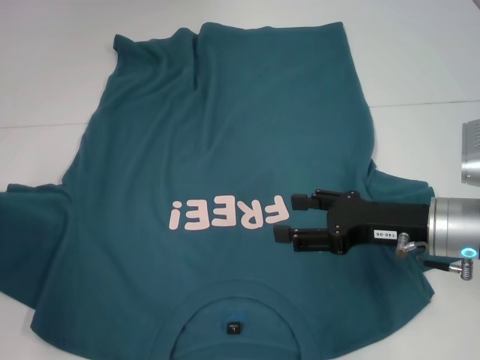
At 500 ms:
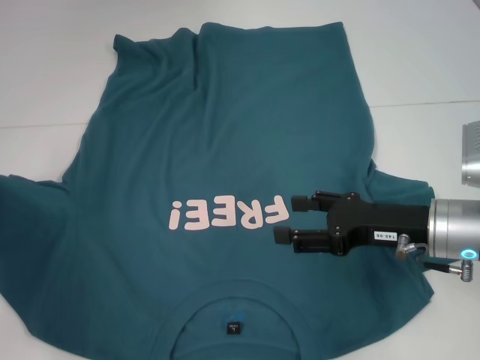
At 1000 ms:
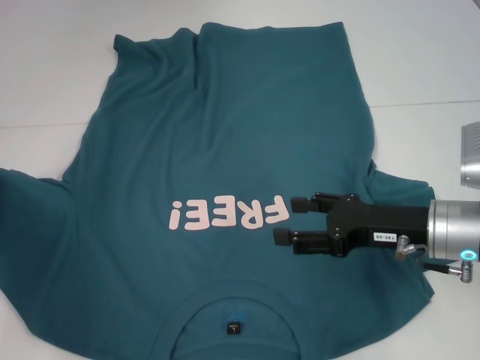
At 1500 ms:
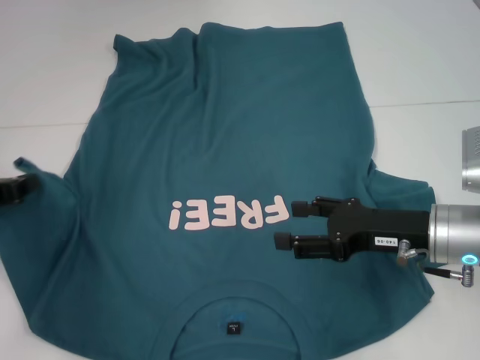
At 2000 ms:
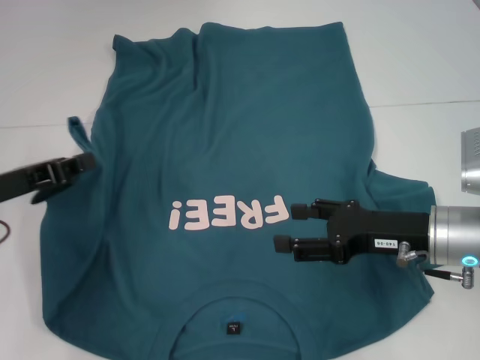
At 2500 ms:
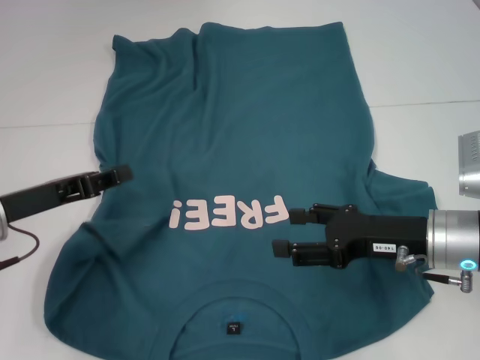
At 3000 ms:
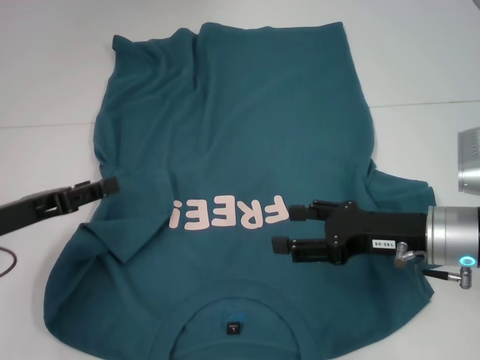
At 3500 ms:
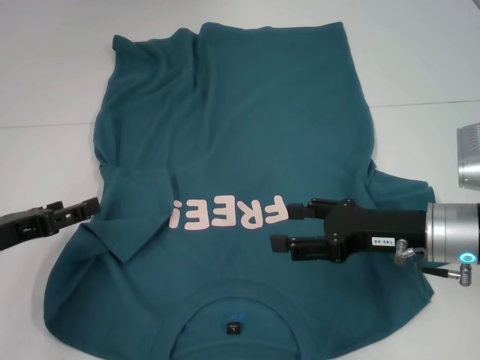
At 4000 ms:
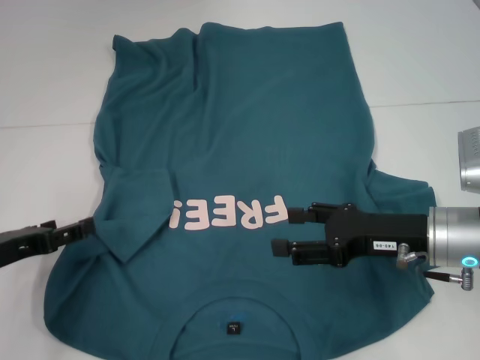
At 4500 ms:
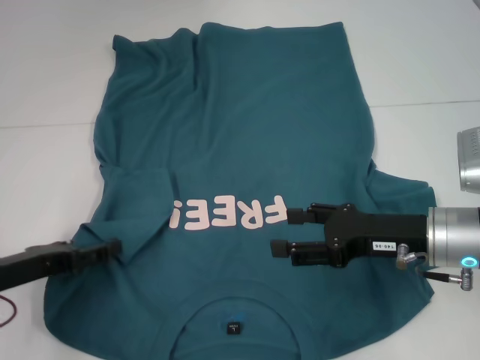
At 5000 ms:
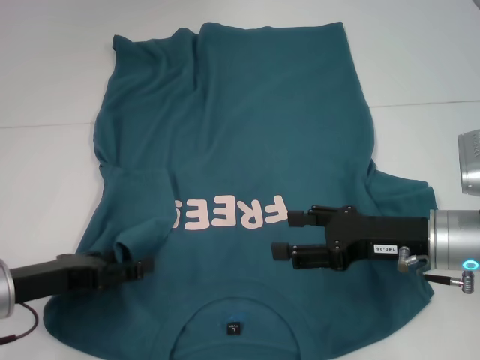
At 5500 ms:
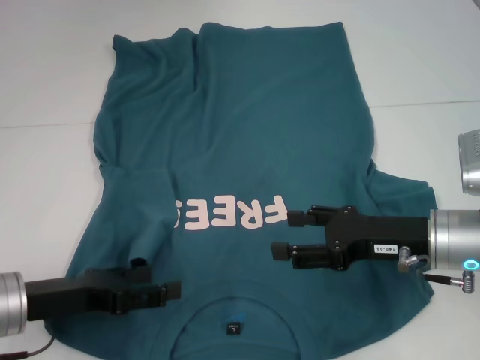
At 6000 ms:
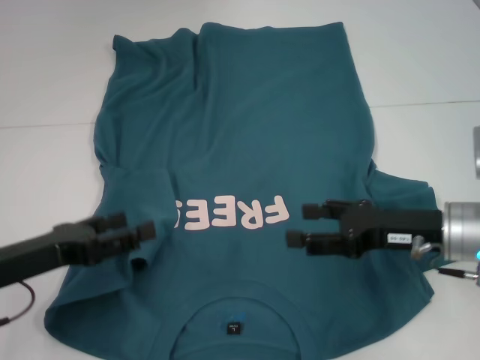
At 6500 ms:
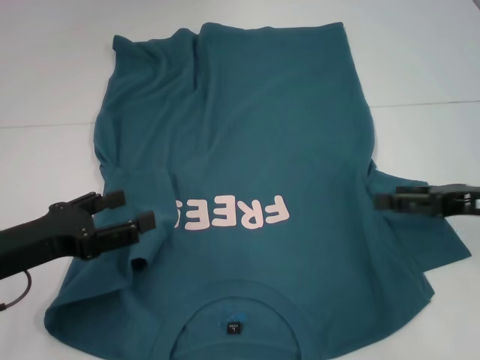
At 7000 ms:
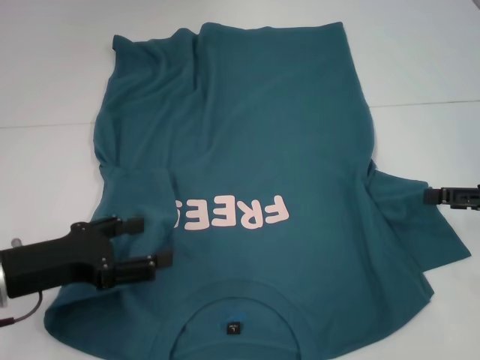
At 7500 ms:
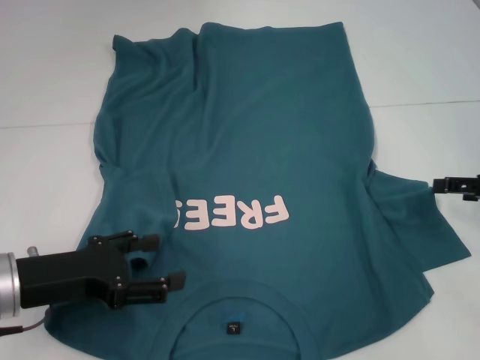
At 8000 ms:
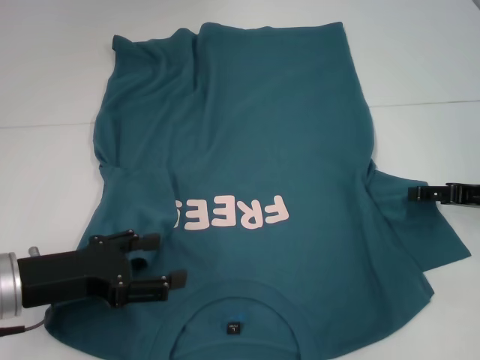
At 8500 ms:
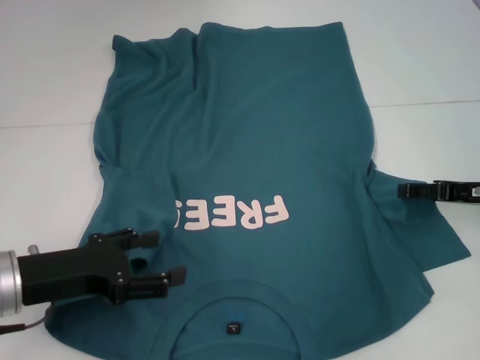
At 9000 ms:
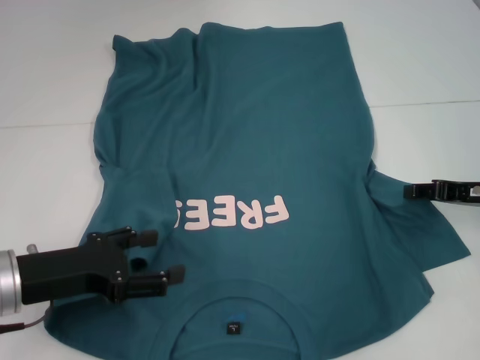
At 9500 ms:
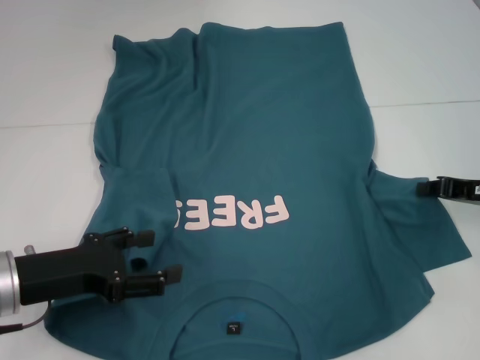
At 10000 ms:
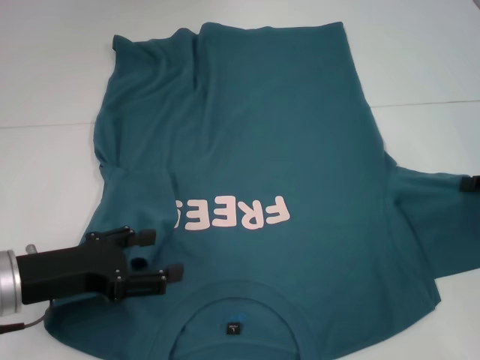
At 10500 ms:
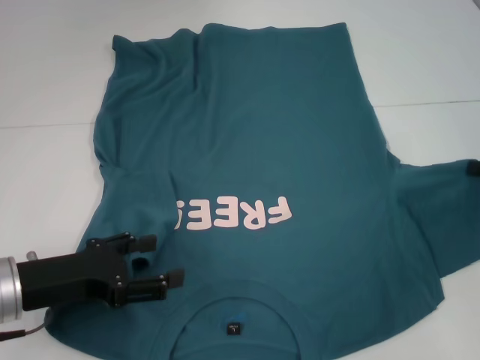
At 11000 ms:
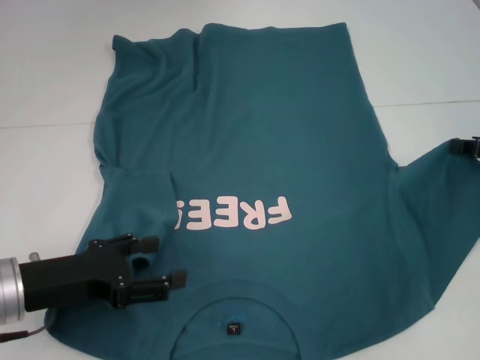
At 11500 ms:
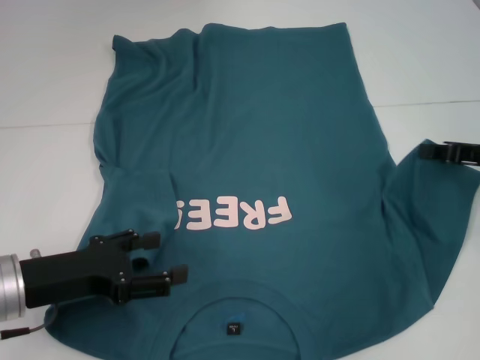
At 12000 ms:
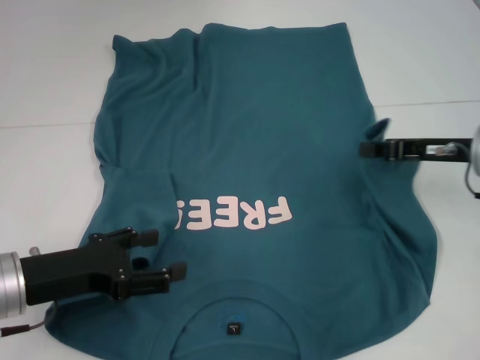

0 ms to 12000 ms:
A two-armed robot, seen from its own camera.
Step, 0 ms to 6000 ms: Fold the bottom left sleeve with your left hand.
0 ms to 2000 ms: The left gripper goes about 10 cm to the right.
2000 ms to 4000 ms: The left gripper travels downward by roughly 5 cm, and opens up.
6000 ms to 8000 ms: The right gripper shifts some 10 cm to the right.
8000 ms to 10000 ms: The right gripper closes its fingers.
10000 ms to 12000 ms: The right gripper heads to the left, covering approximately 10 cm.

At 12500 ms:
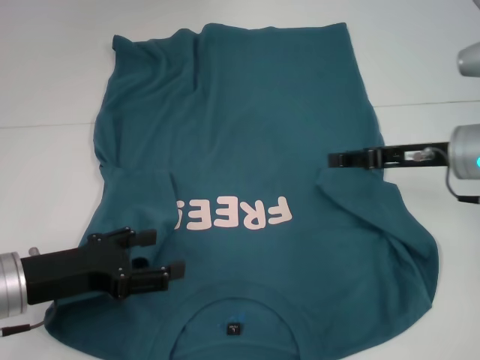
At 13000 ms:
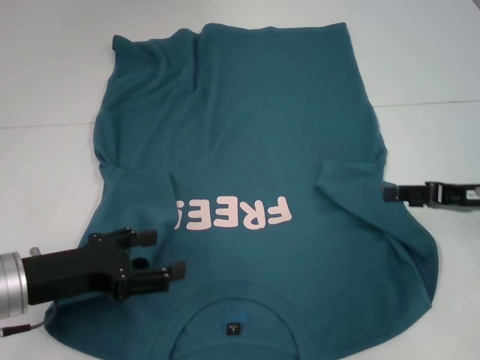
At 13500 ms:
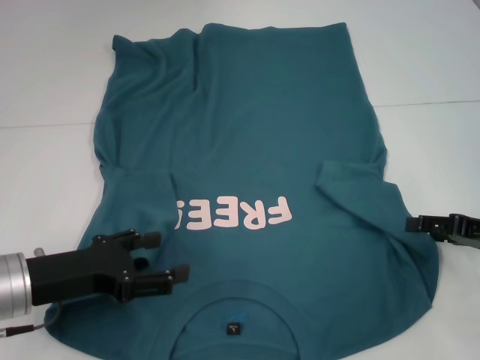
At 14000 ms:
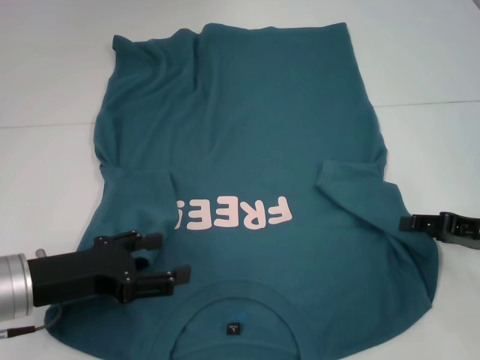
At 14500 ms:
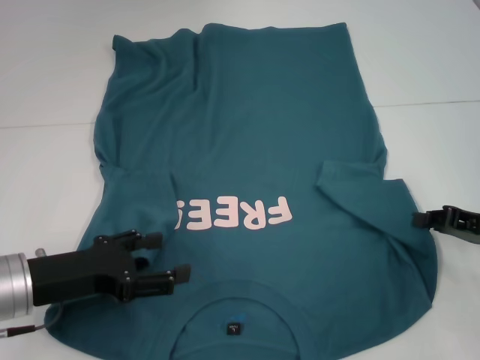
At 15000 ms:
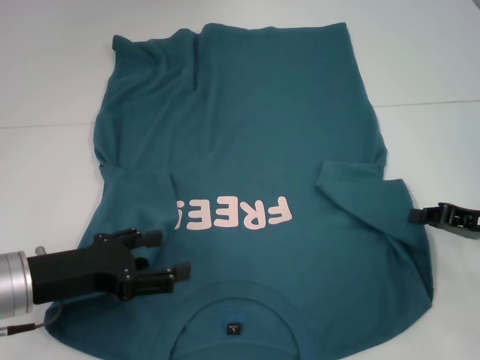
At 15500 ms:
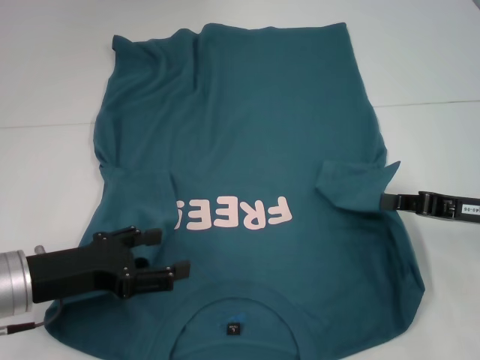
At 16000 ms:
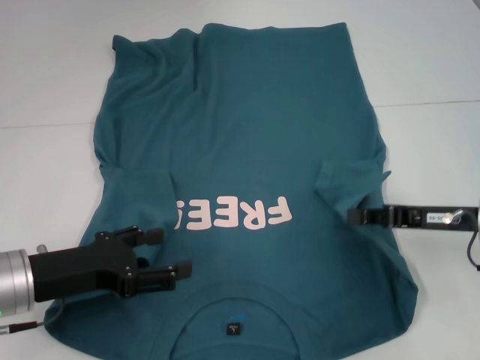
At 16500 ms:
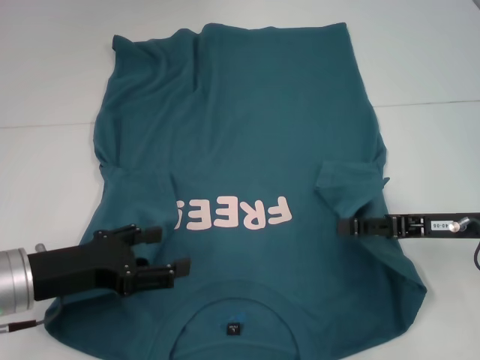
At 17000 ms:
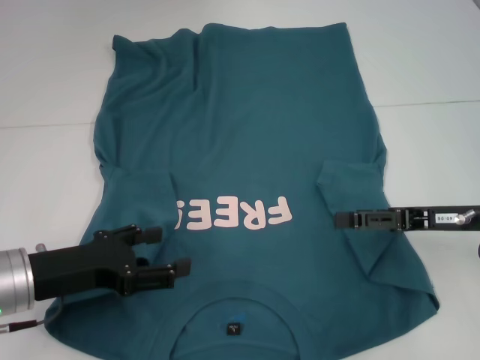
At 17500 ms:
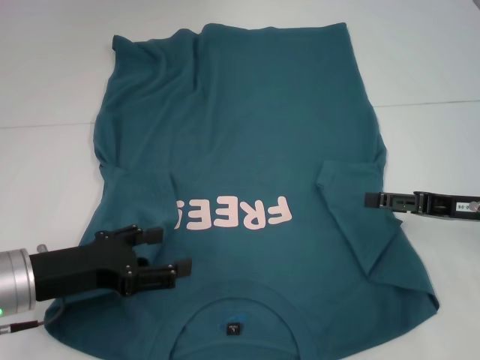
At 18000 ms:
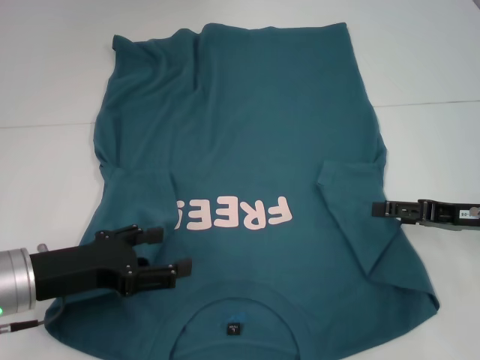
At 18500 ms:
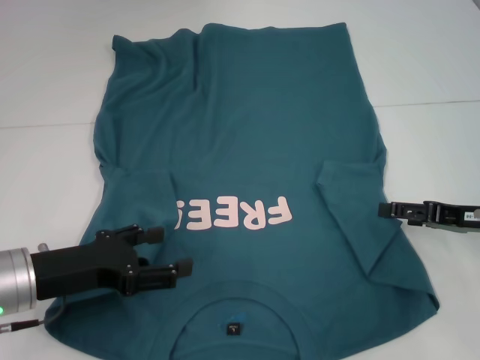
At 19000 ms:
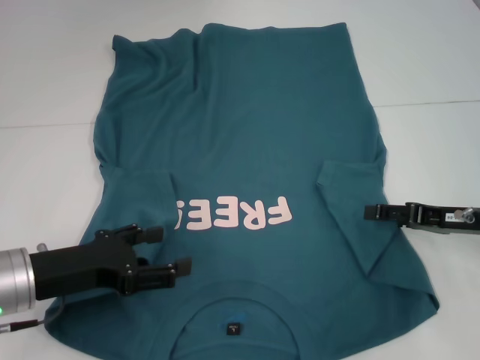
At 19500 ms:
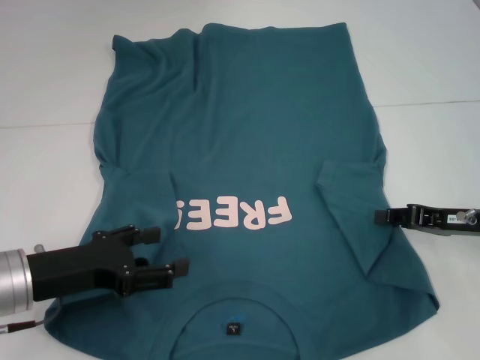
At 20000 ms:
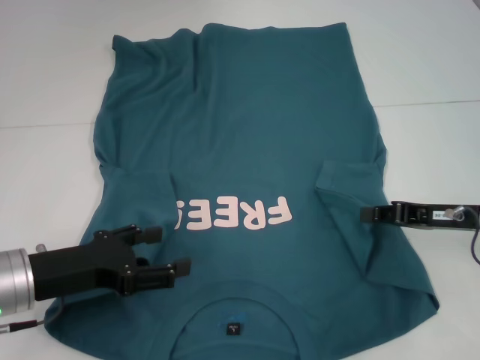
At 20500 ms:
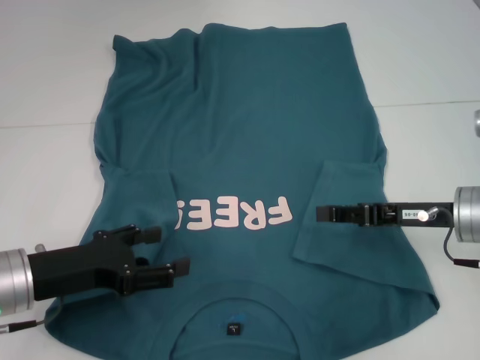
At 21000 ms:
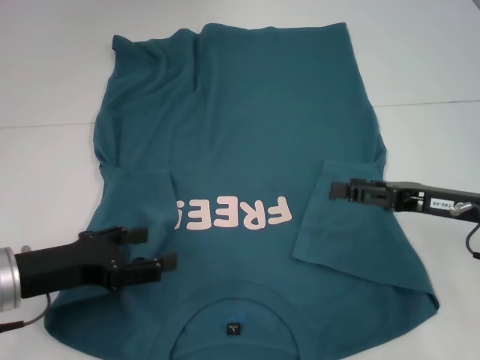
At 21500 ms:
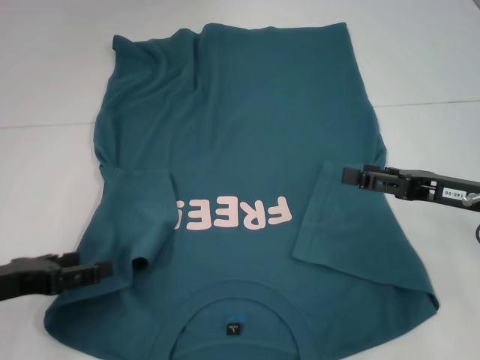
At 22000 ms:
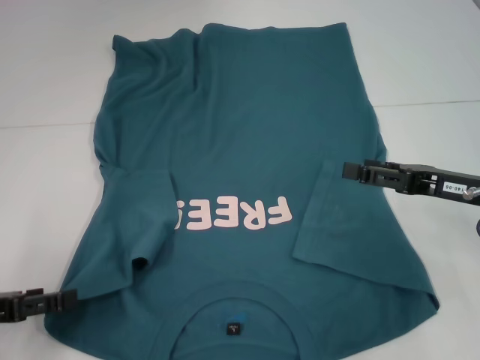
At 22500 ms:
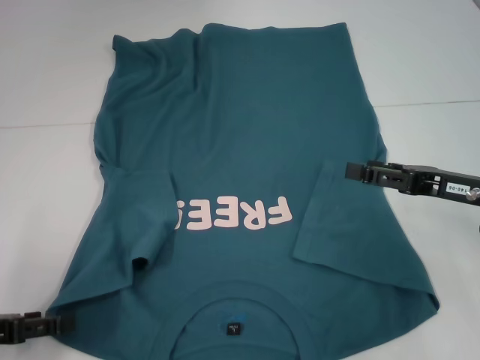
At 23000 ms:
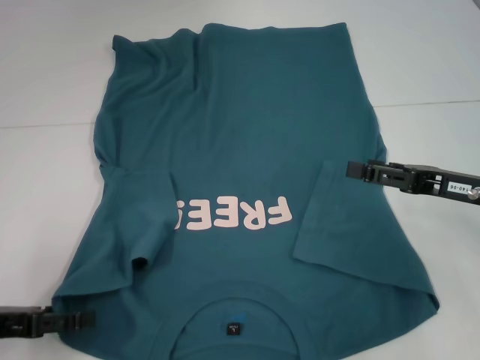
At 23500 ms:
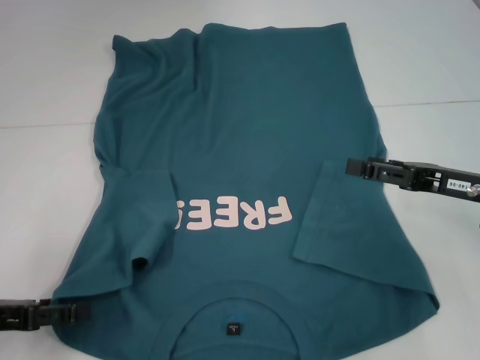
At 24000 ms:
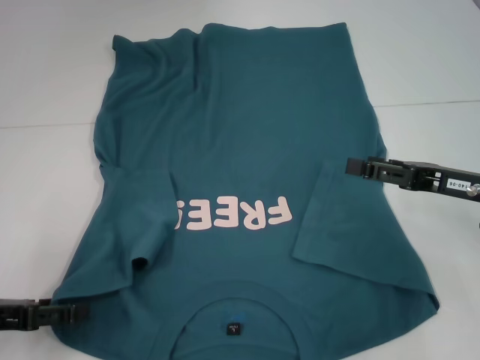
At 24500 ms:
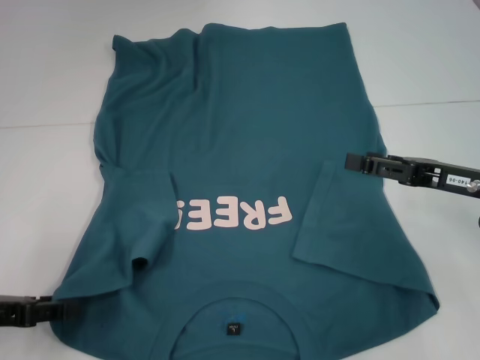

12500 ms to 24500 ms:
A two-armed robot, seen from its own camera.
Step, 12500 ms to 21000 ms: Fold the bottom right sleeve to the right.
12500 ms to 14500 ms: The right gripper travels to the right, backward and downward by some 10 cm, and opens and closes again.
14500 ms to 16500 ms: The right gripper moves to the left, about 5 cm.
16500 ms to 18500 ms: The right gripper opens its fingers.
18500 ms to 20500 ms: The right gripper heads to the left, covering some 5 cm, and closes up.
20500 ms to 22500 ms: The left gripper moves to the left, about 10 cm; the right gripper opens.
22500 ms to 24500 ms: The grippers make only small movements.

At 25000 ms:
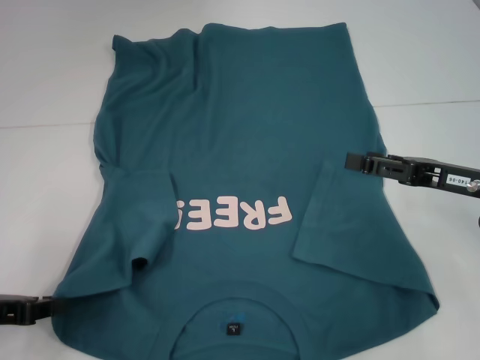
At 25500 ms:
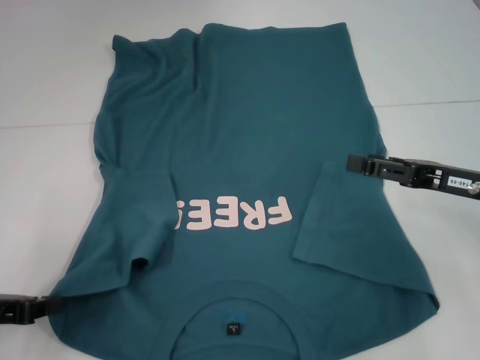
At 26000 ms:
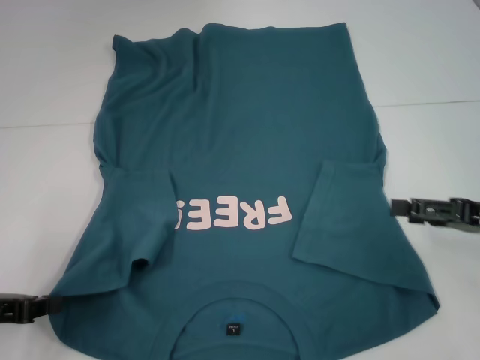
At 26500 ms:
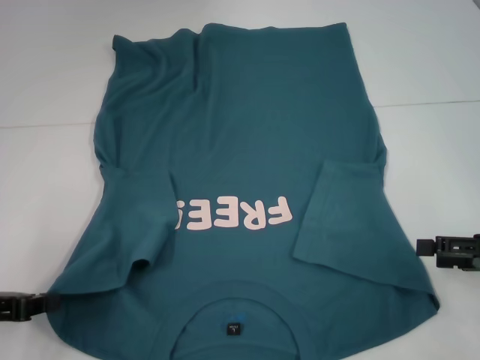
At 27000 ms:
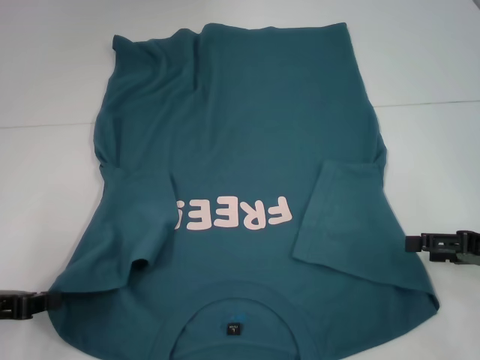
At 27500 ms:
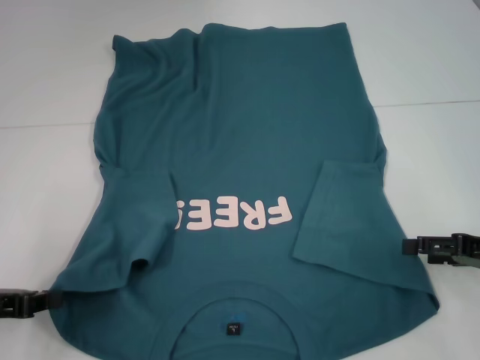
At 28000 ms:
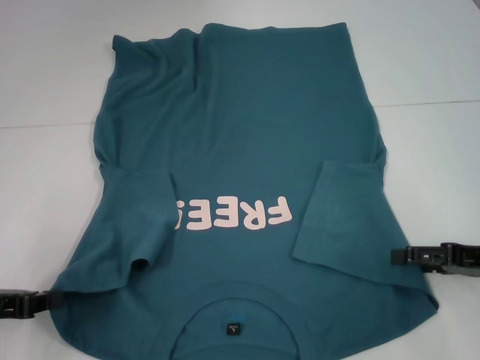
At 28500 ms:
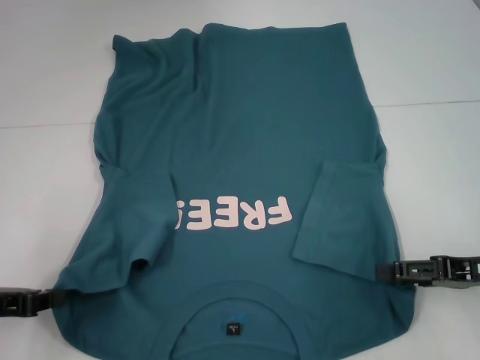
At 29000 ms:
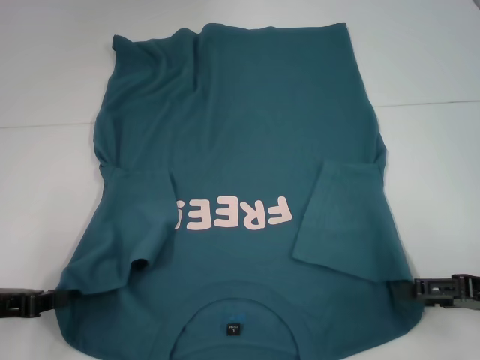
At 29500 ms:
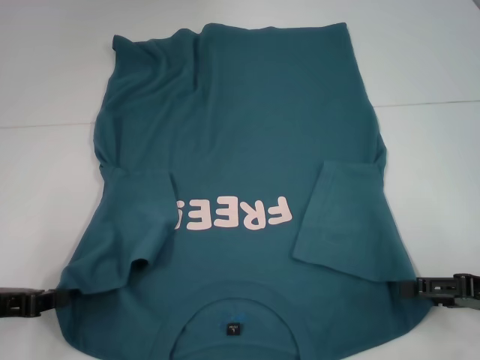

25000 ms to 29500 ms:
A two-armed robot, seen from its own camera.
25000 ms to 27000 ms: The right gripper shifts roughly 5 cm to the right.
27000 ms to 29500 ms: The grippers stay close to where they were, moving slightly.
